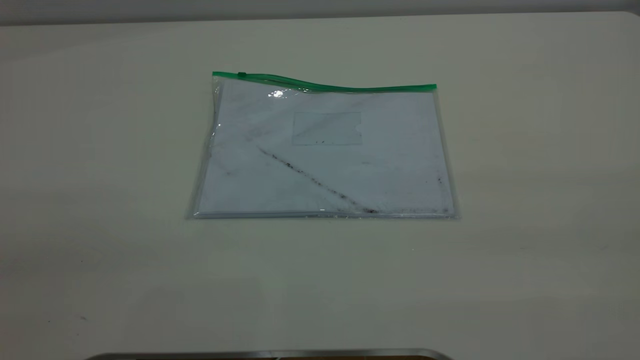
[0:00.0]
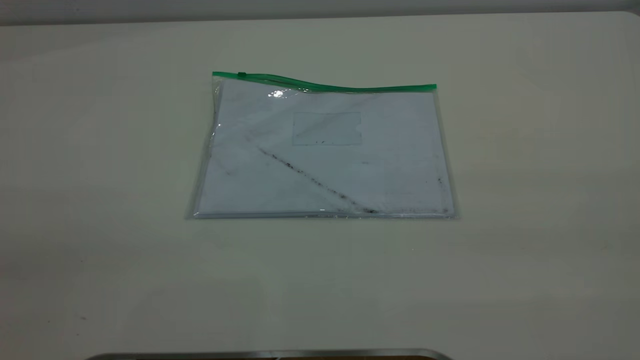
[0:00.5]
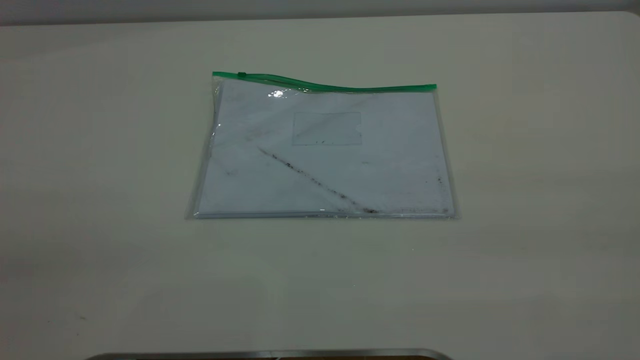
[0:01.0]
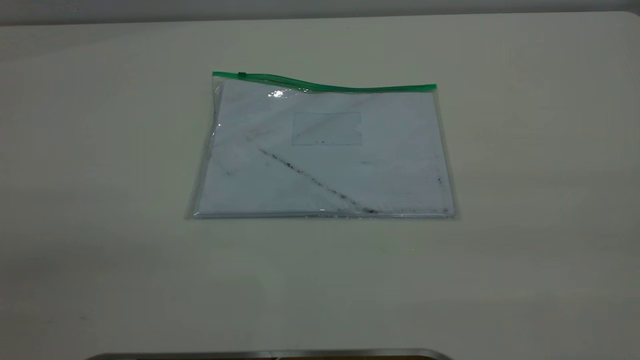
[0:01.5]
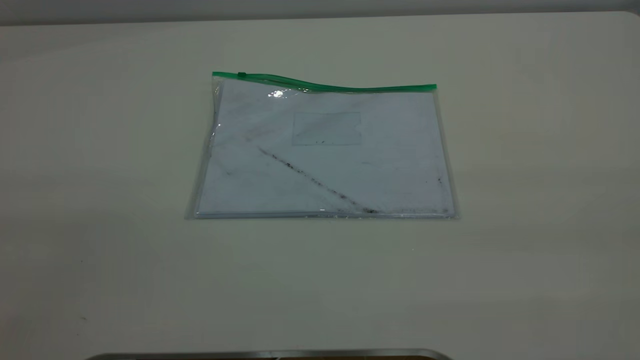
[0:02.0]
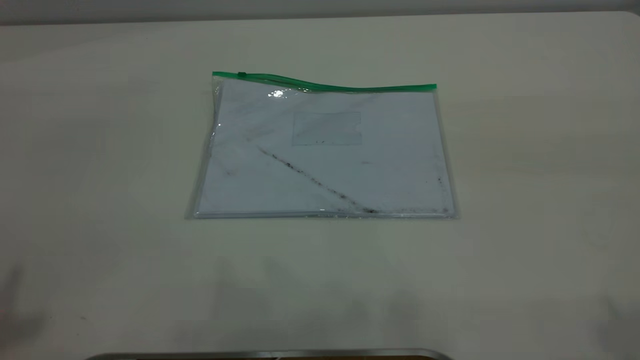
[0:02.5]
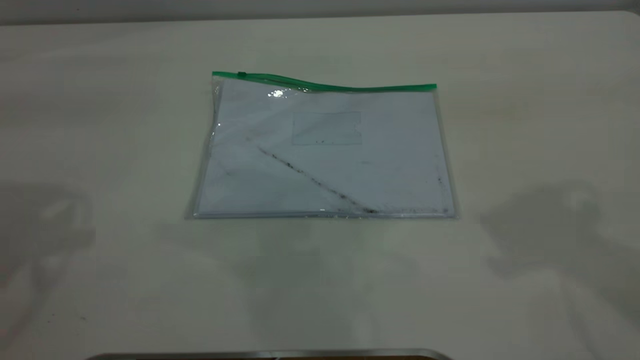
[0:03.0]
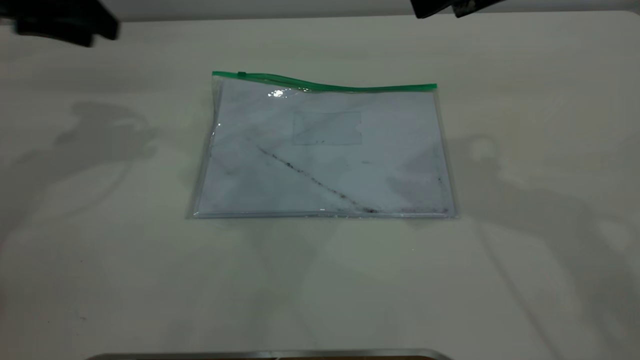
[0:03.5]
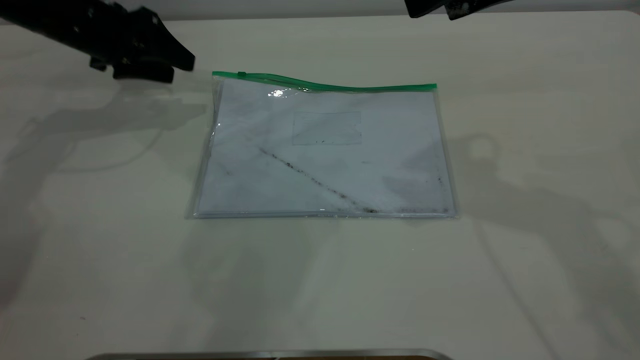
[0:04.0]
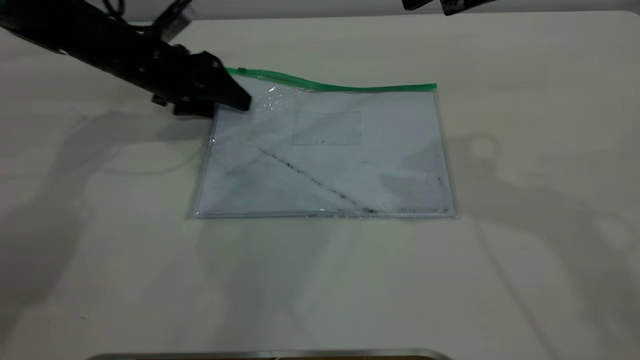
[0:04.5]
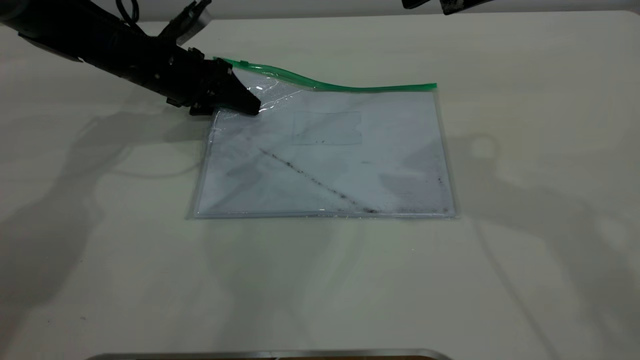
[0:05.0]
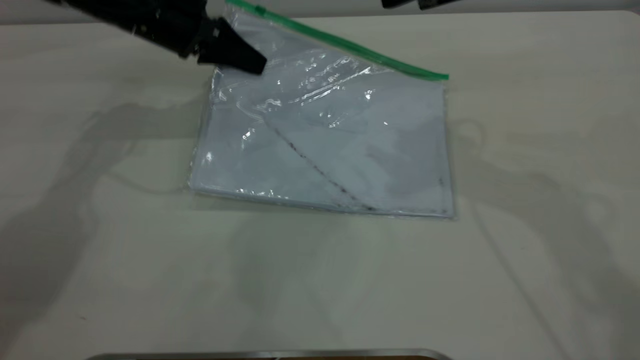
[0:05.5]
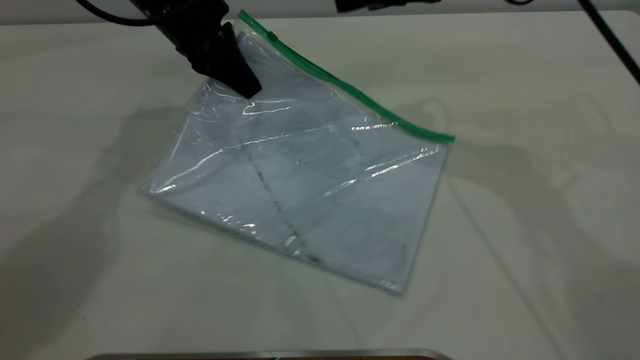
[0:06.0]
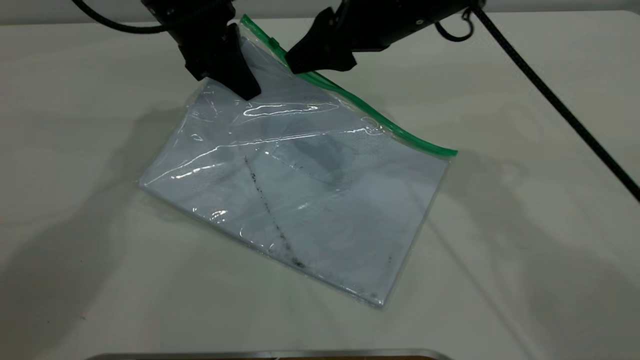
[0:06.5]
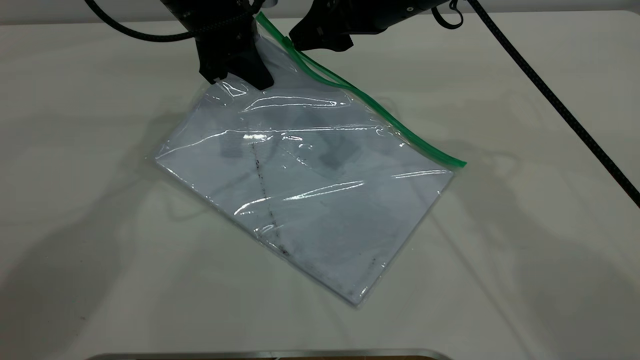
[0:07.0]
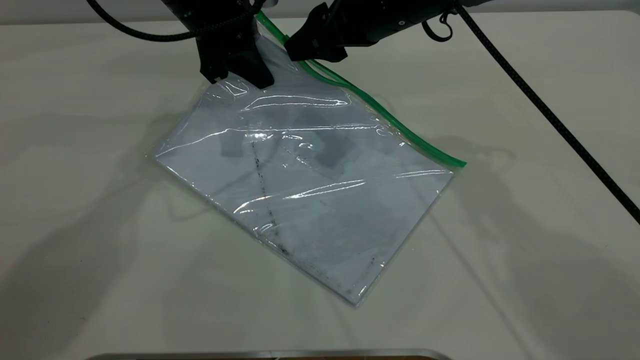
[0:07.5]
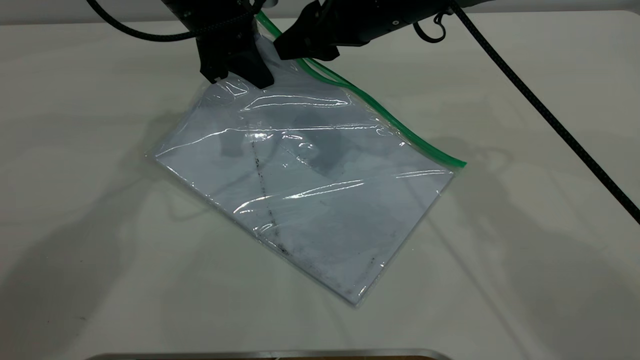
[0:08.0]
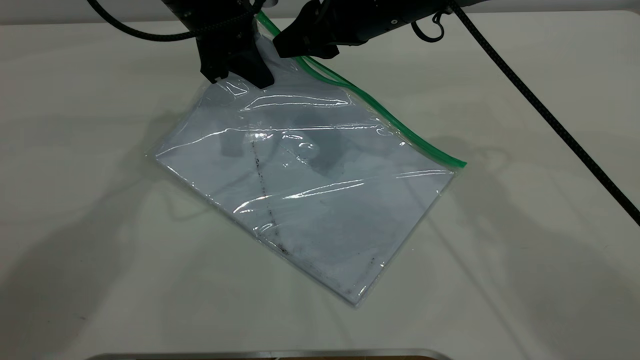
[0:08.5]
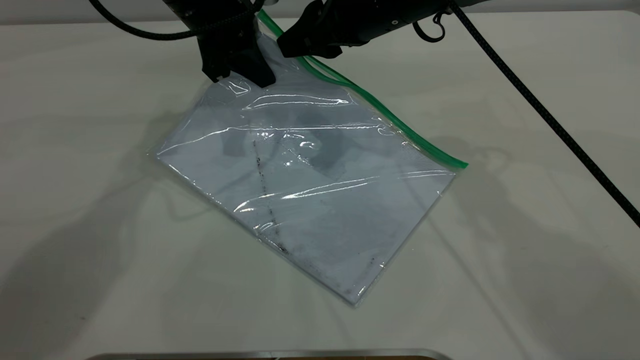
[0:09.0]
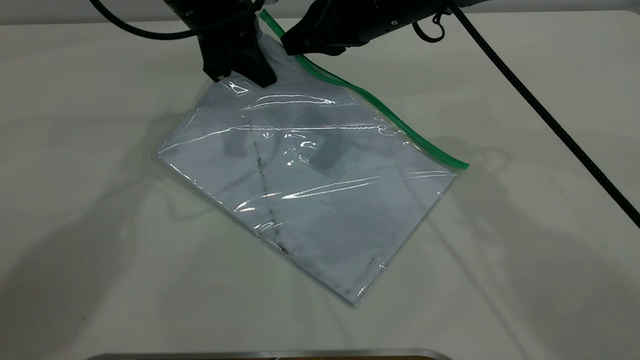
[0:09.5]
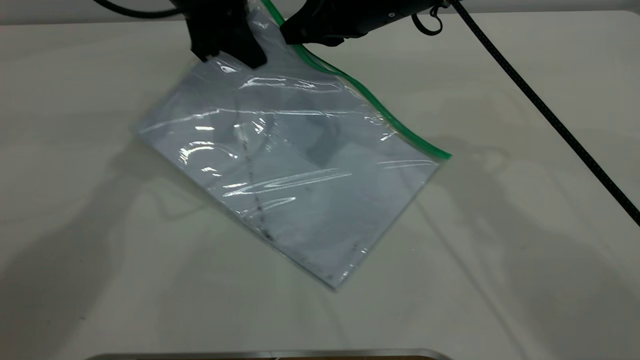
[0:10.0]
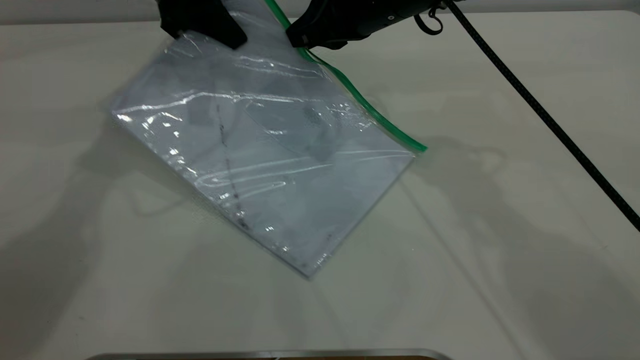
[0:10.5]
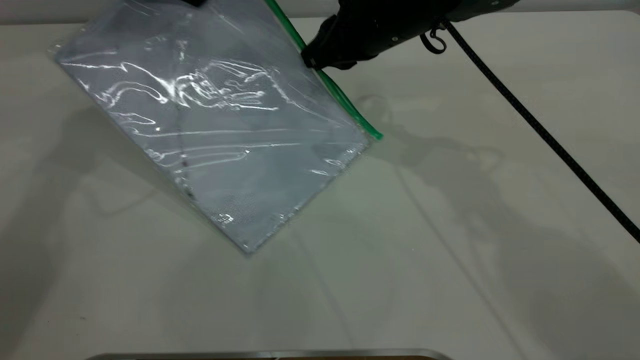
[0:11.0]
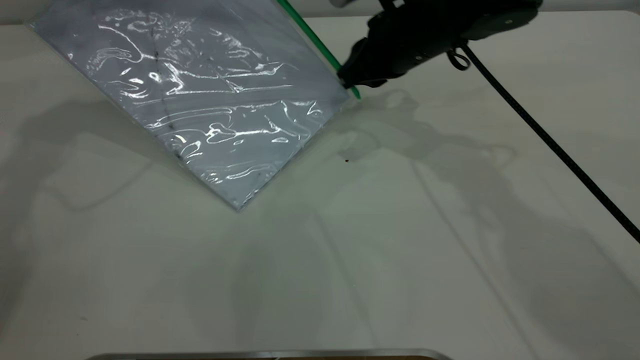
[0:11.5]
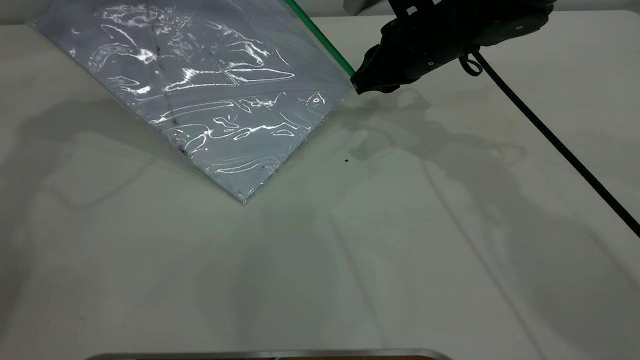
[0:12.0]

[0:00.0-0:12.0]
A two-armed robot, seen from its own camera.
Step, 0:00.0 to 0:05.0: Pick up the transparent plastic bag with the left gripper.
0:02.0 to 0:04.0: The left gripper travels forward and downward by approximately 60 cm.
0:04.0 to 0:06.0: The right gripper travels forward and downward by some 10 cm. Meanwhile the left gripper moves to the right and upward, some 15 cm, and closes.
0:06.0 to 0:08.0: The right gripper goes some 5 cm to the left.
0:08.0 to 0:10.0: The right gripper closes.
0:10.0 to 0:12.0: The left gripper moves to the left and upward, approximately 15 cm. The right gripper heads downward, covering some 5 cm.

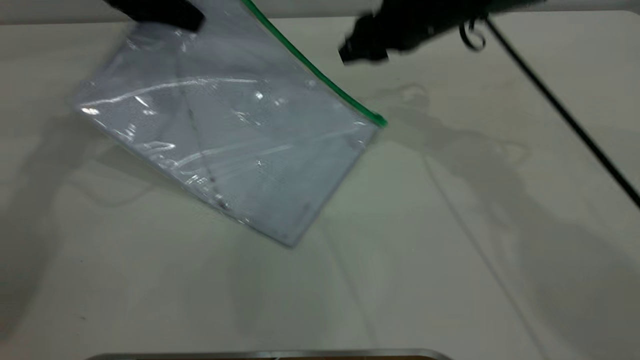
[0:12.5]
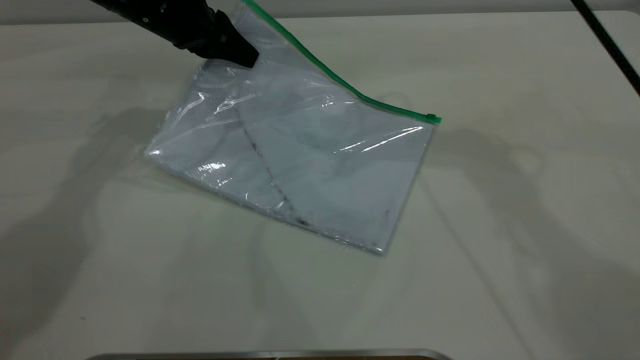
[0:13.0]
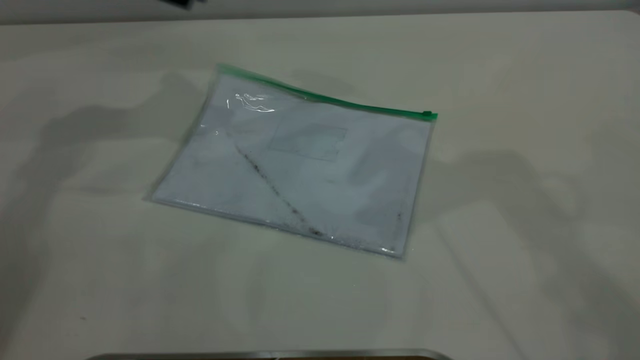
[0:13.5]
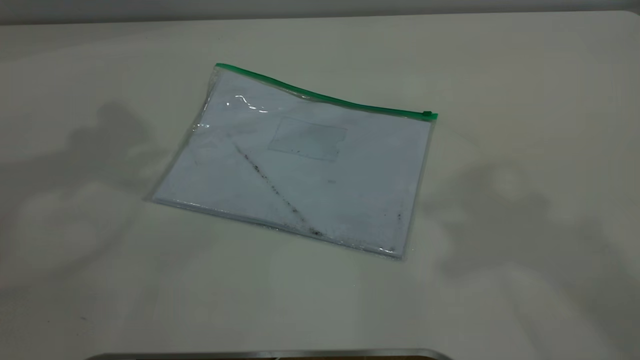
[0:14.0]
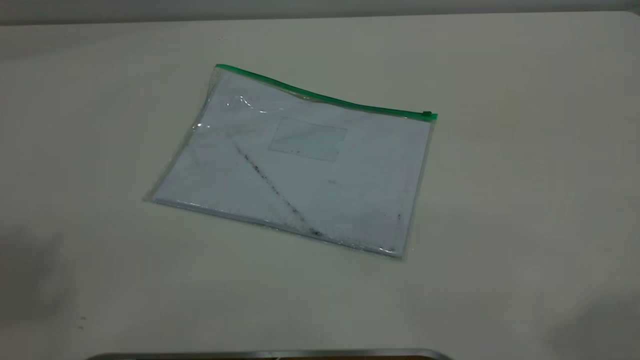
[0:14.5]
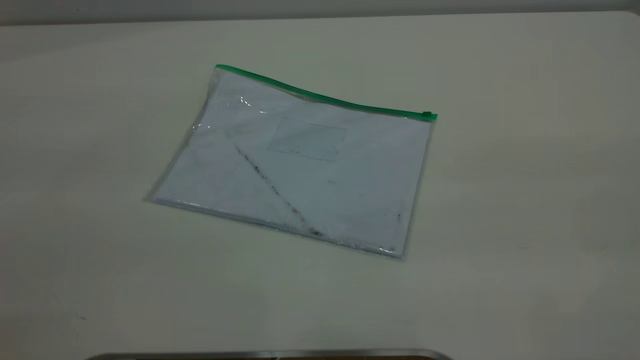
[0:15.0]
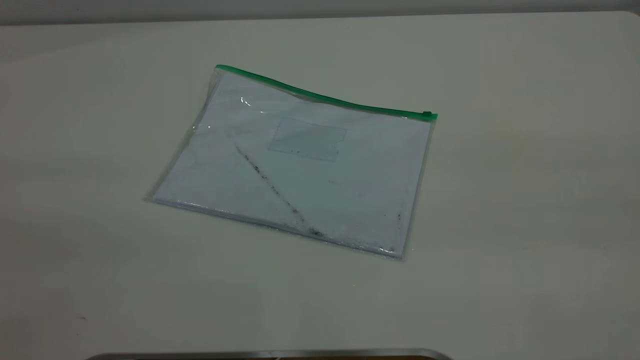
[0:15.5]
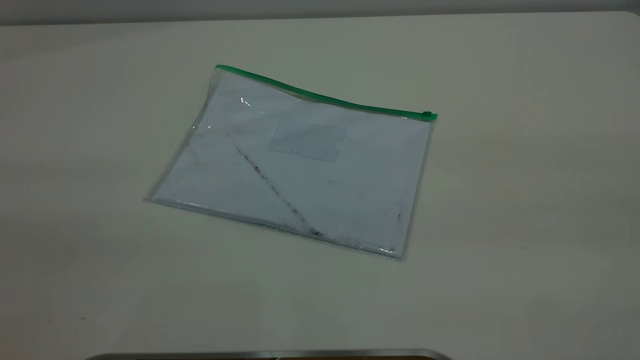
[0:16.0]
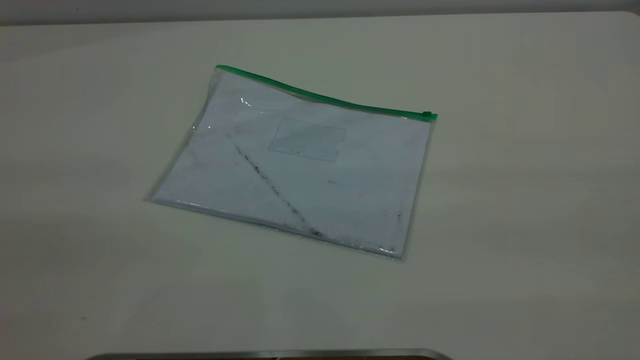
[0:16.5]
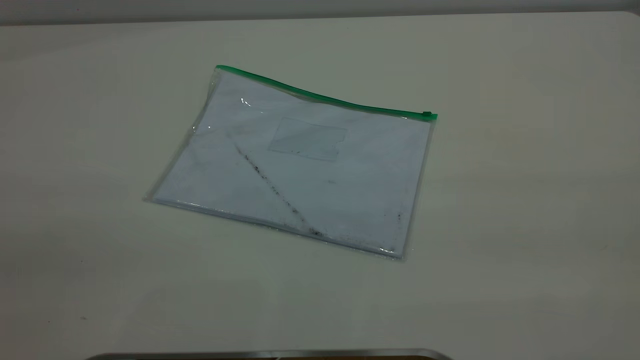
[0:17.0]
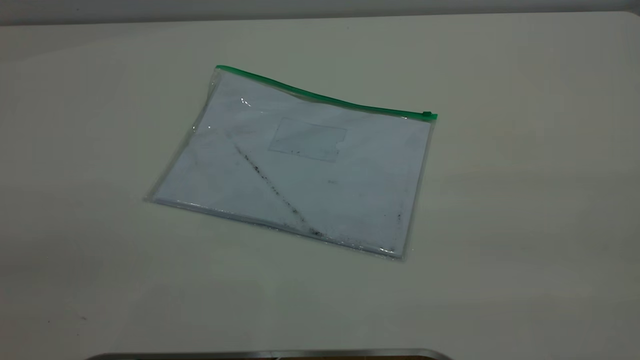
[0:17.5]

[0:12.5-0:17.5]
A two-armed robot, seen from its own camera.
0:12.5 to 0:15.0: The right gripper moves backward, upward and to the right, about 50 cm; the left gripper swings up and down, roughly 40 cm each way, with 2 reversals, and opens.
